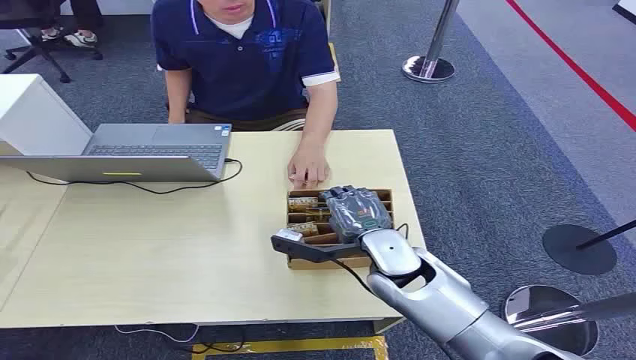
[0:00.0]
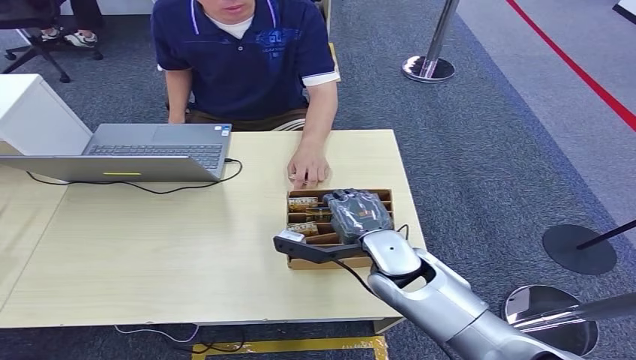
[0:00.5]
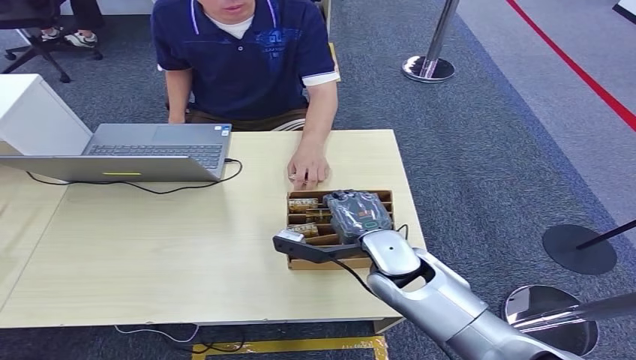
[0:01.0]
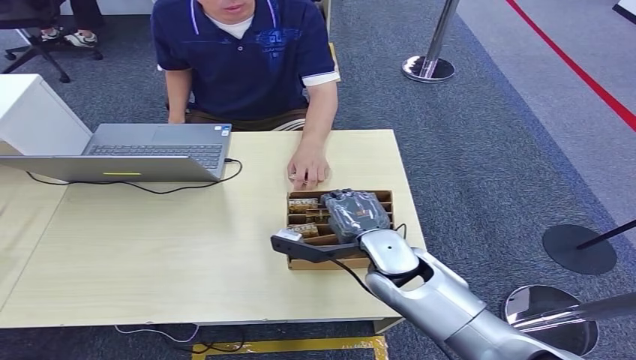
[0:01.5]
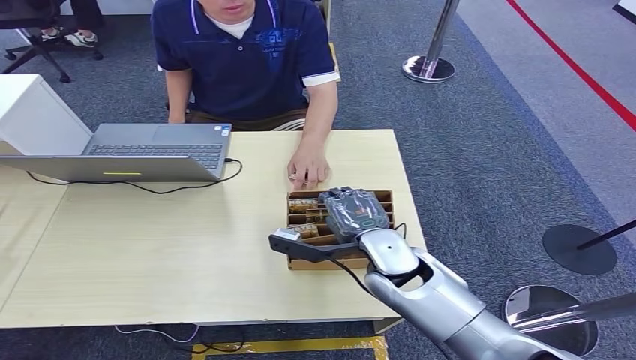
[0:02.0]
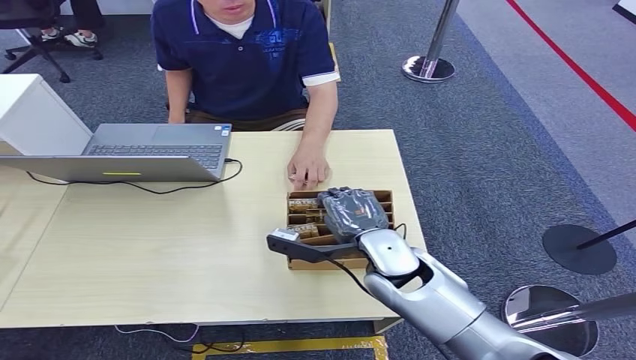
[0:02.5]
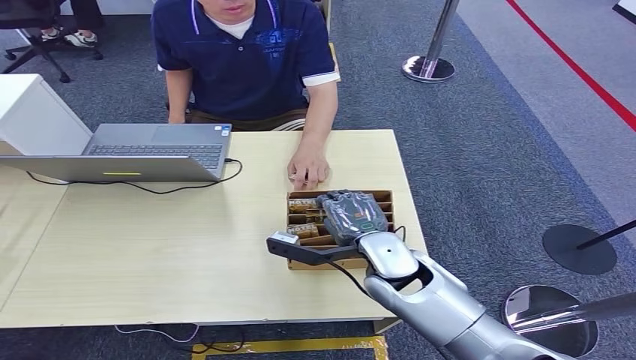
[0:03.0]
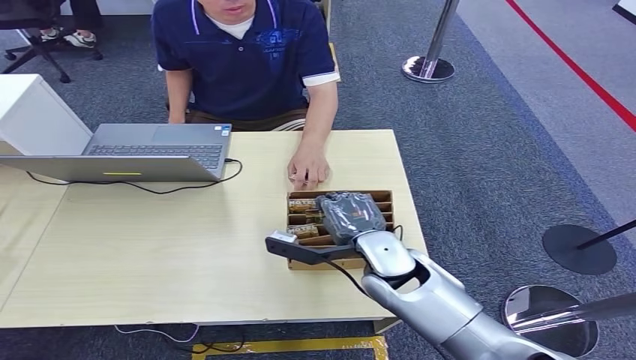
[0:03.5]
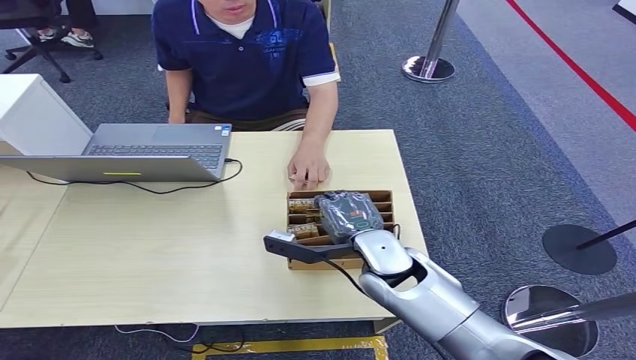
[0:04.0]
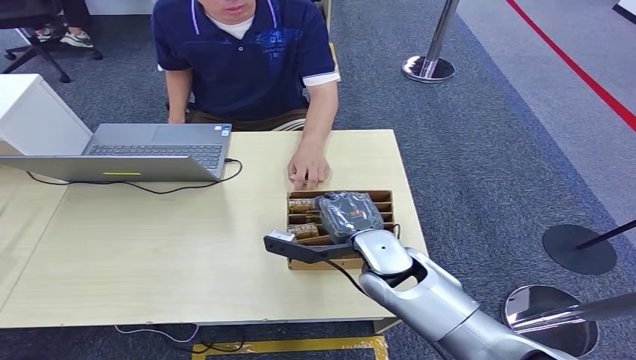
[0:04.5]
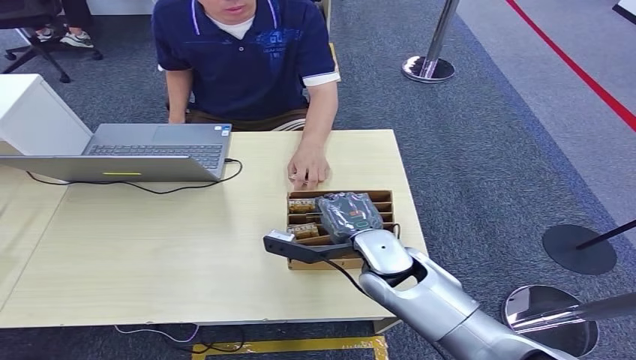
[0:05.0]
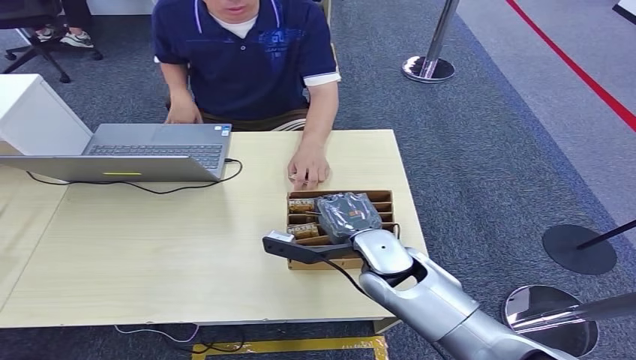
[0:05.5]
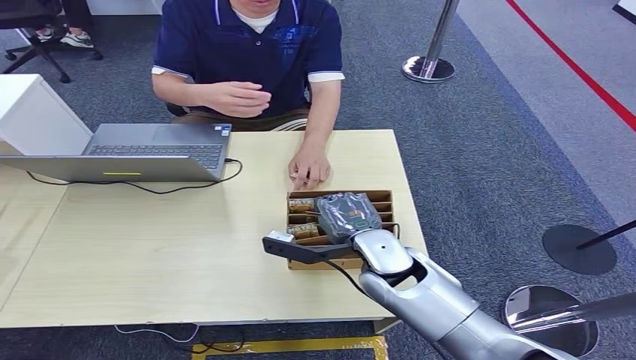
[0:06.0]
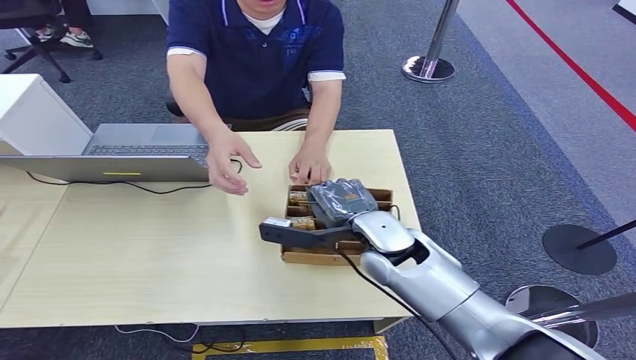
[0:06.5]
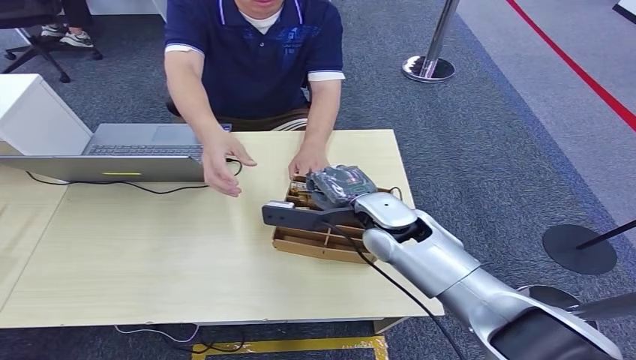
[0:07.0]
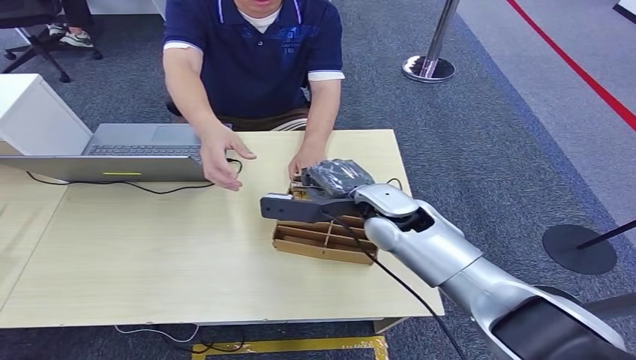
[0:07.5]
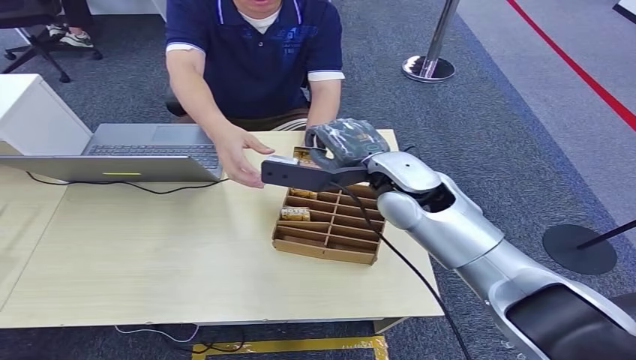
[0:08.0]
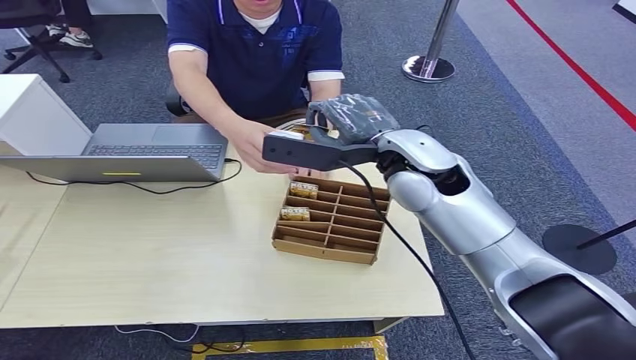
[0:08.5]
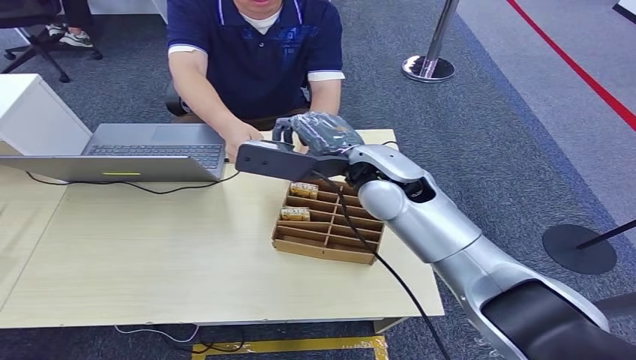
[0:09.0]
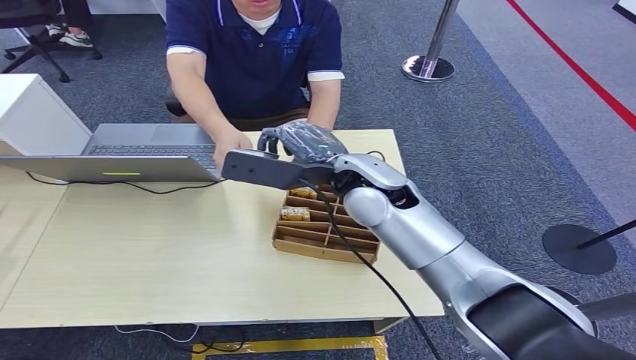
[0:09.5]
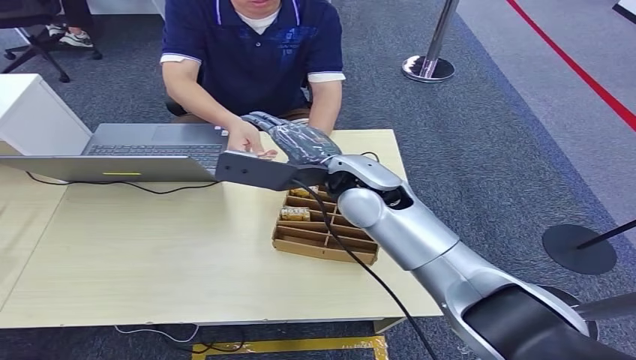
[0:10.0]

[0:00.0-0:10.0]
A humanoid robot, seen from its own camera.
Step, 0:00.0 to 0:08.0: Pick up the room card from the card holder.
Step, 0:08.5 to 0:10.0: Hand the room card to the target.
0:02.0 to 0:04.0: The two hands keep their place.
0:04.0 to 0:06.0: The hands move only a little.
0:08.0 to 0:10.0: The right hand travels to the left by roughly 5 cm.
